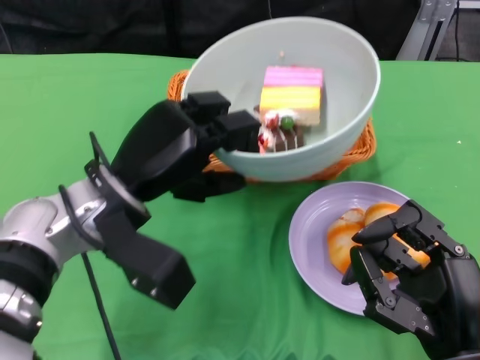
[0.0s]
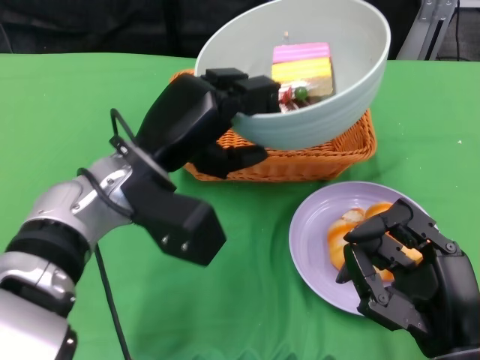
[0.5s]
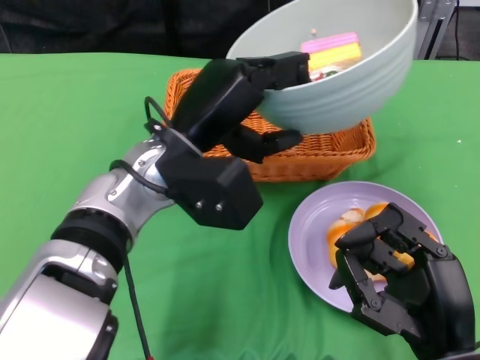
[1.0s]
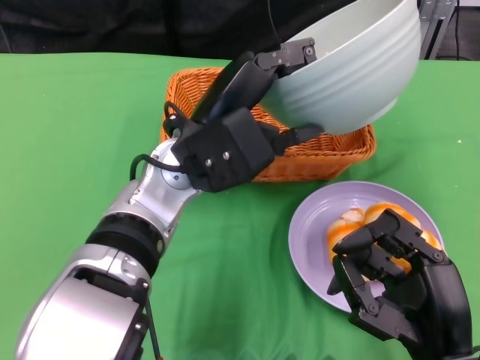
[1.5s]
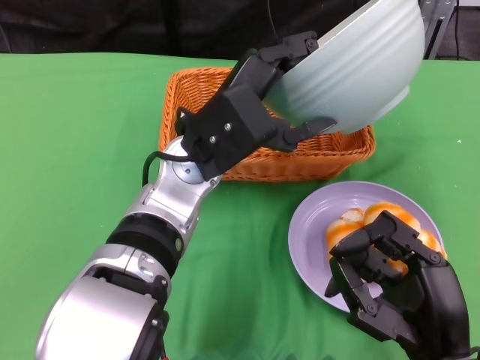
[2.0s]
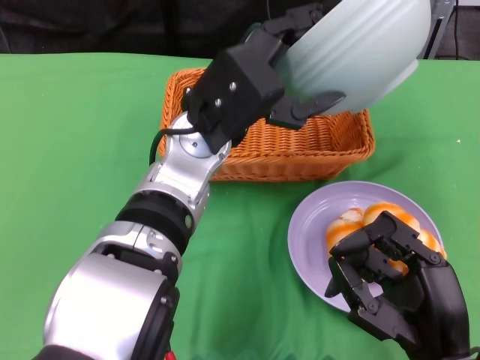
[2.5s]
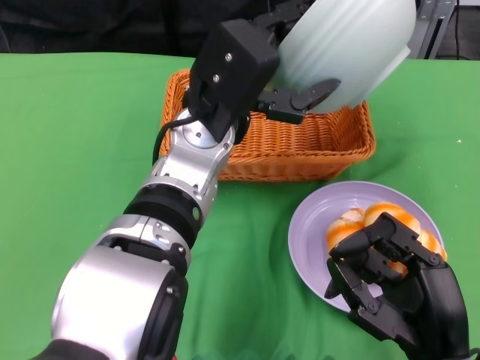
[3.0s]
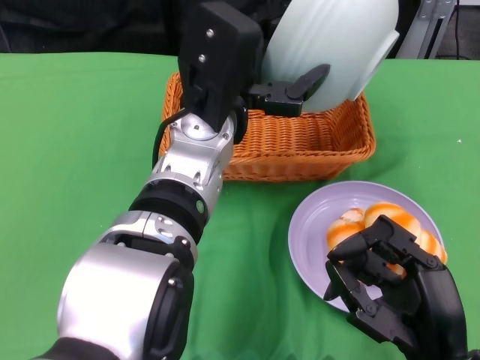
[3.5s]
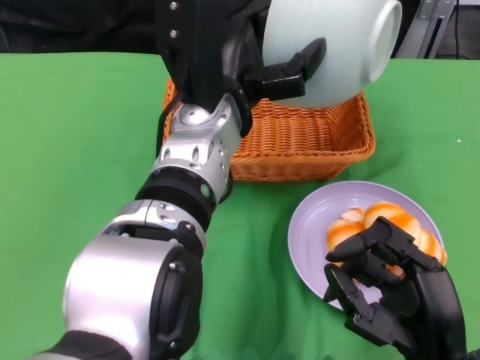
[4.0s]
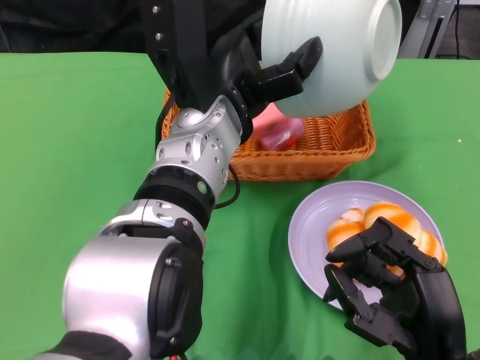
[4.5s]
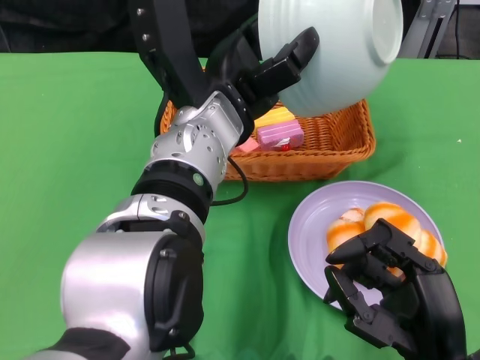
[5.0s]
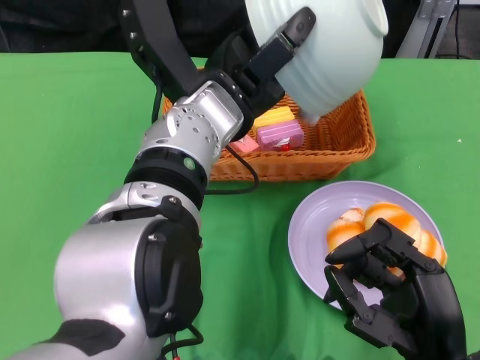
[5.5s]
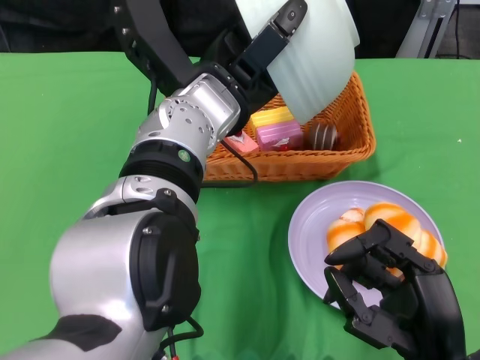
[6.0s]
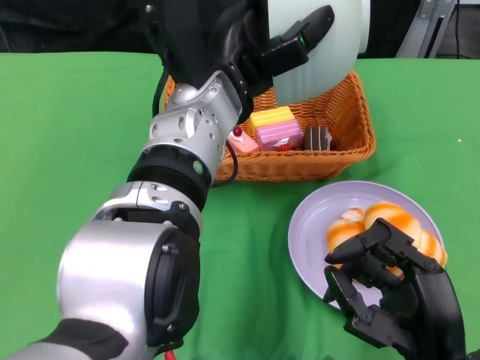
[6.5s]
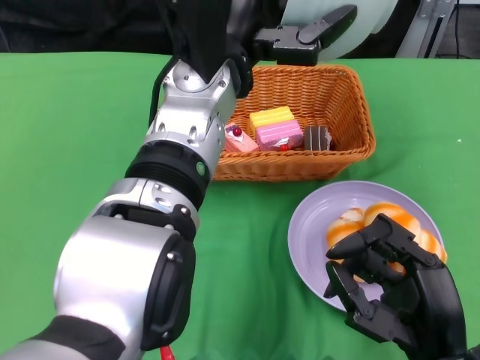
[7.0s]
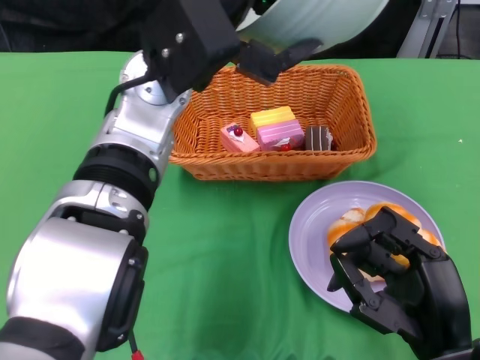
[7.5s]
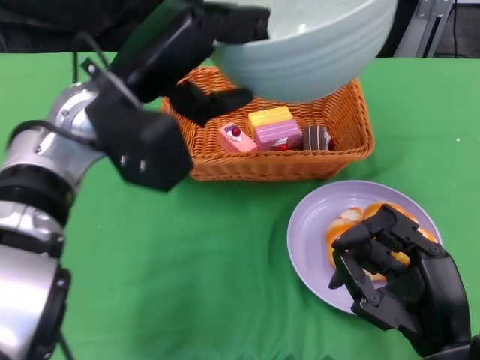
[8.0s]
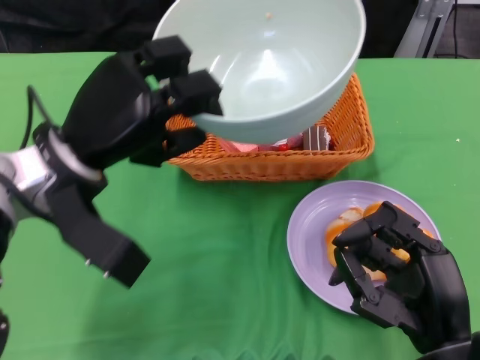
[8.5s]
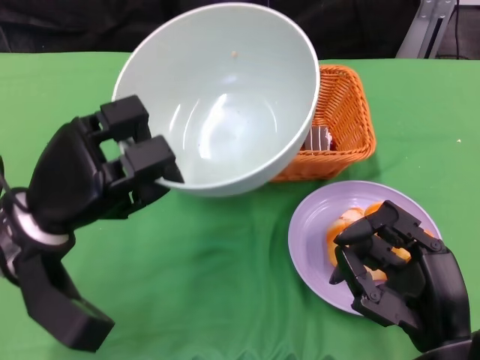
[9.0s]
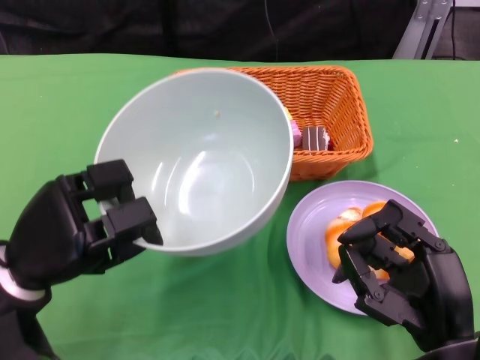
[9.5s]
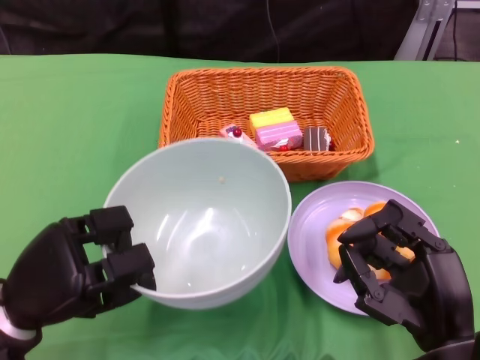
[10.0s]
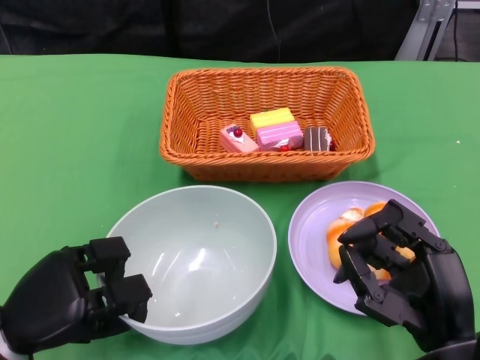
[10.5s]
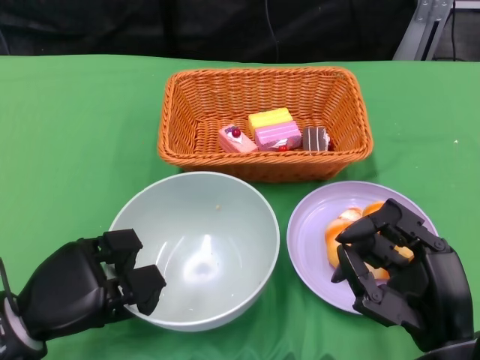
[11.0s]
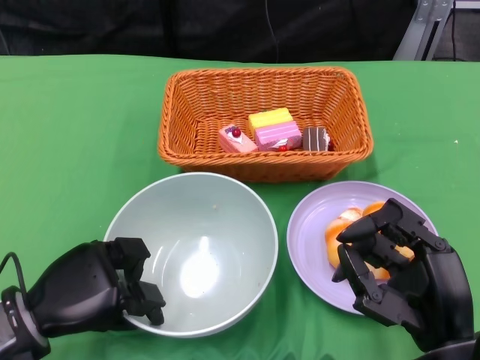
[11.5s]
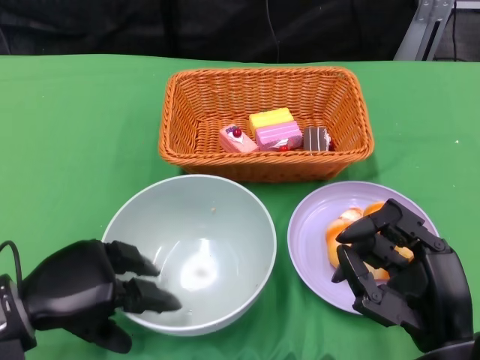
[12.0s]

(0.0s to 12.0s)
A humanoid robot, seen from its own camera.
Step, 0.0s - 6.5s: Pour the cake into the basket with the left gripper.
0.0s - 2.0s: The left hand is displaced to the right by roughly 10 cm.
6.0s - 8.0s: The left hand heads to the left, covering about 10 cm.
8.0s - 10.0s: The left hand goes some 20 cm downward, to the left and backward.

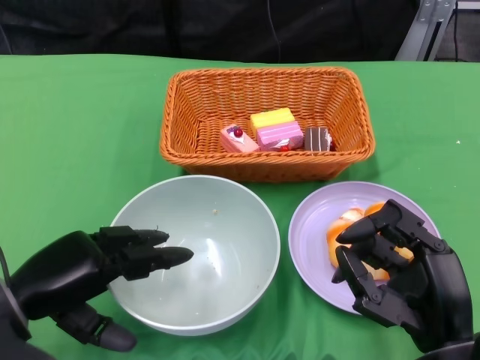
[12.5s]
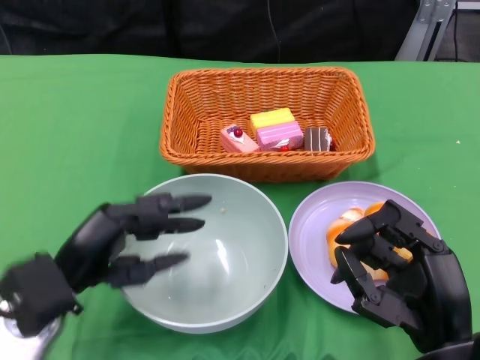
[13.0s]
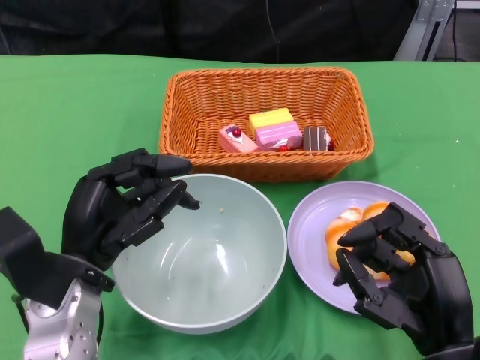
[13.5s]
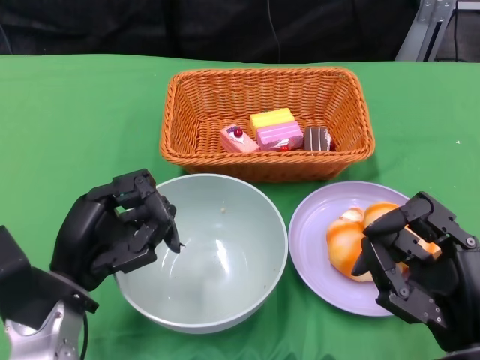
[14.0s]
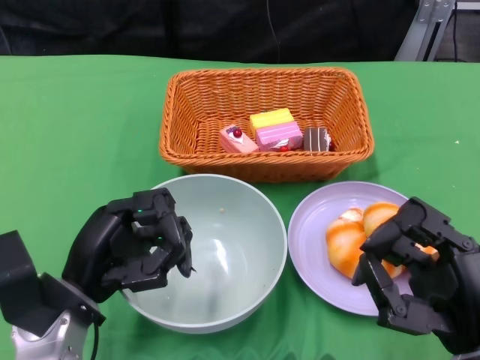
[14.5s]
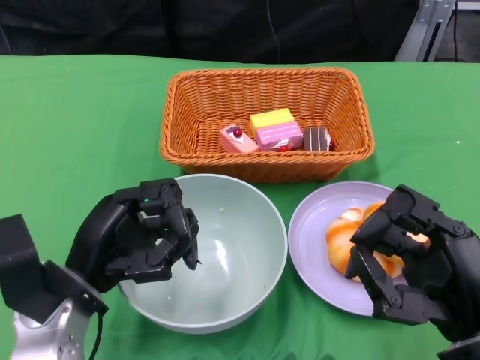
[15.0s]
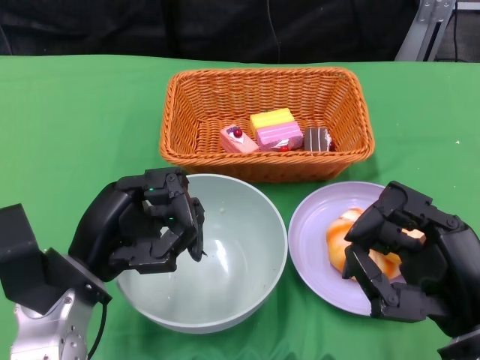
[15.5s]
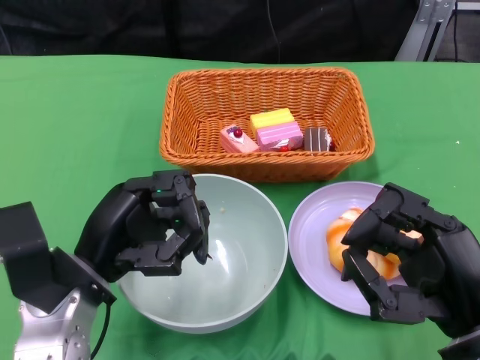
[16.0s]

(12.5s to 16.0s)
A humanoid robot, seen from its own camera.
12.5s - 14.5s: The left hand goes approximately 5 cm to the right.
14.5s - 16.0s: There are only small adjustments of the hands.

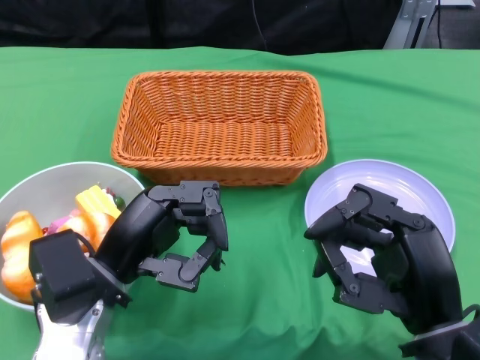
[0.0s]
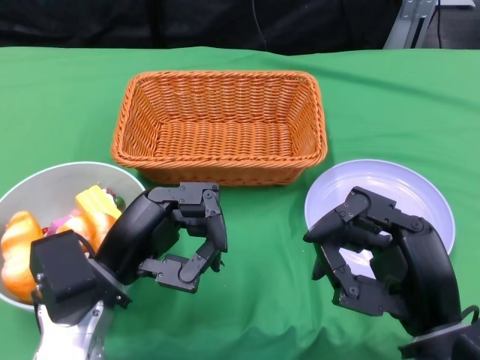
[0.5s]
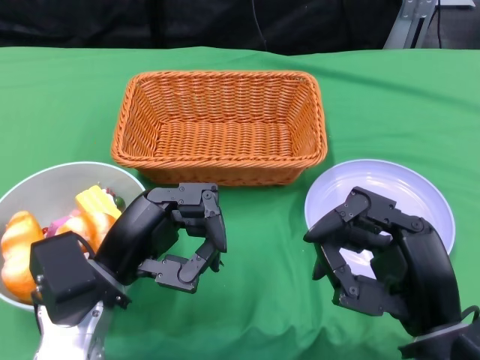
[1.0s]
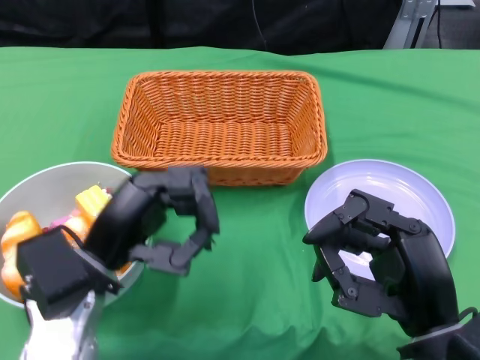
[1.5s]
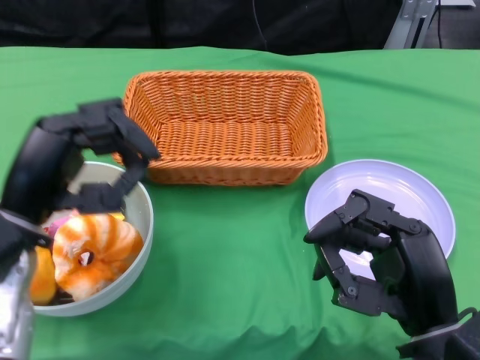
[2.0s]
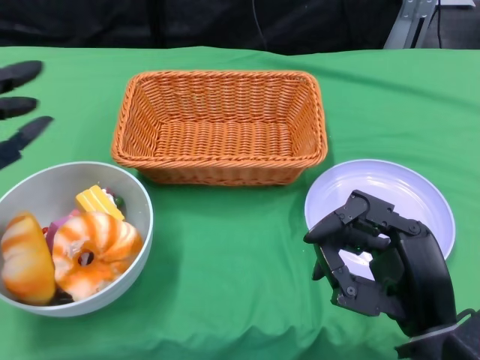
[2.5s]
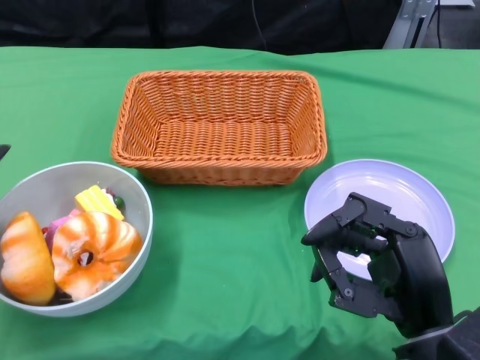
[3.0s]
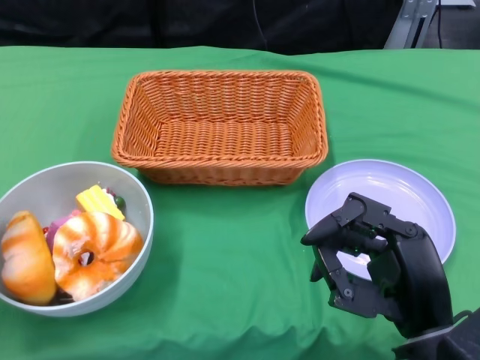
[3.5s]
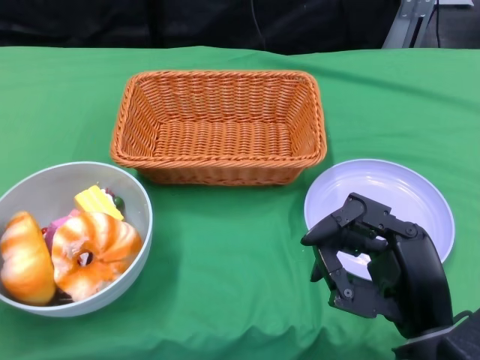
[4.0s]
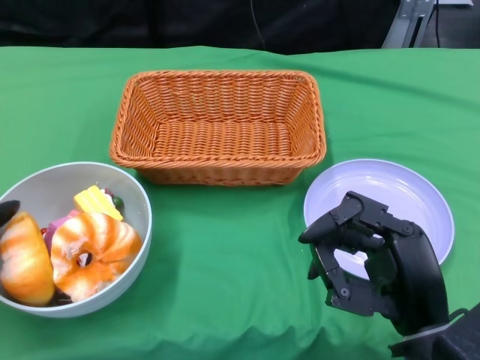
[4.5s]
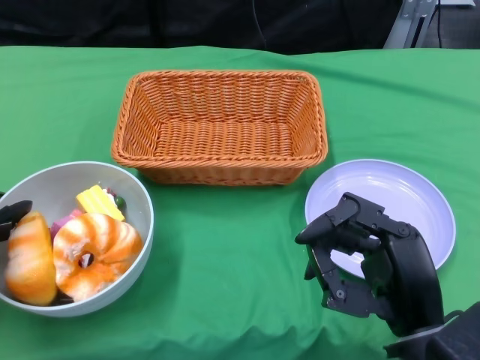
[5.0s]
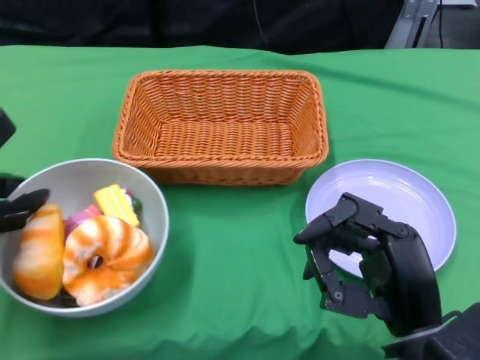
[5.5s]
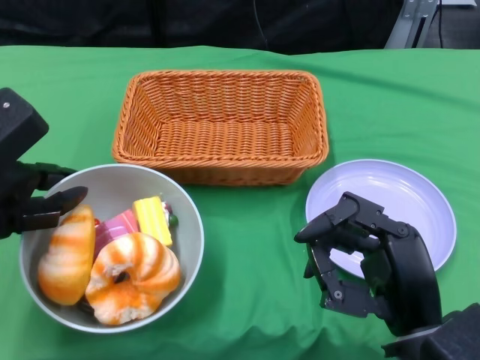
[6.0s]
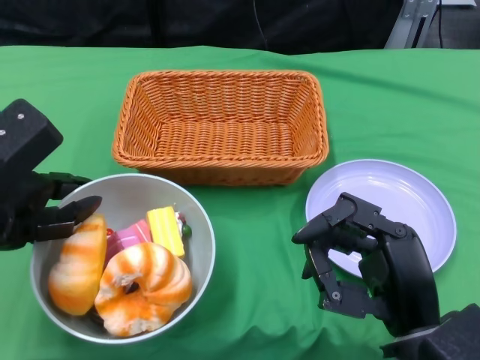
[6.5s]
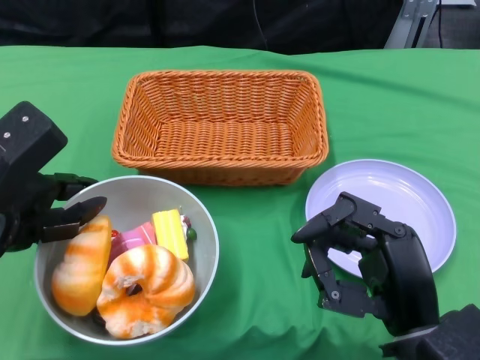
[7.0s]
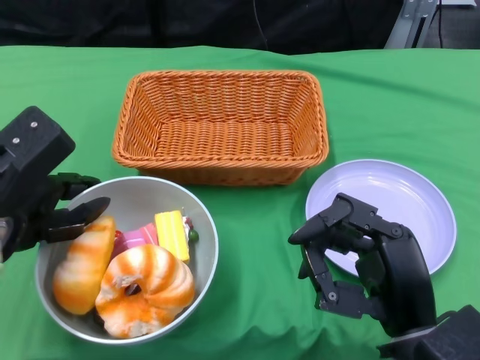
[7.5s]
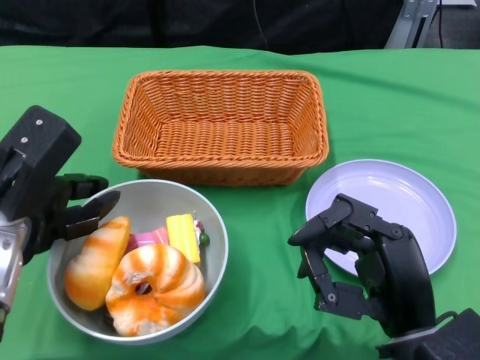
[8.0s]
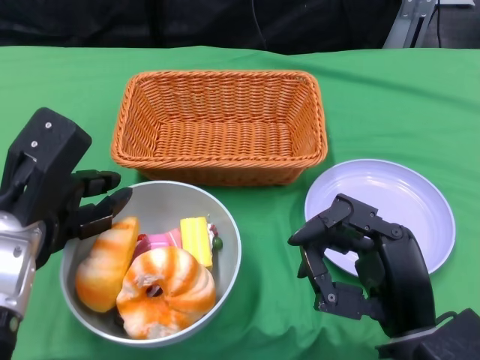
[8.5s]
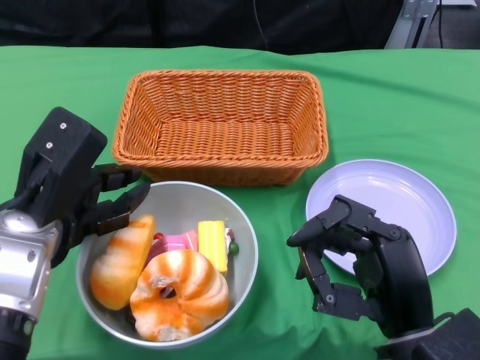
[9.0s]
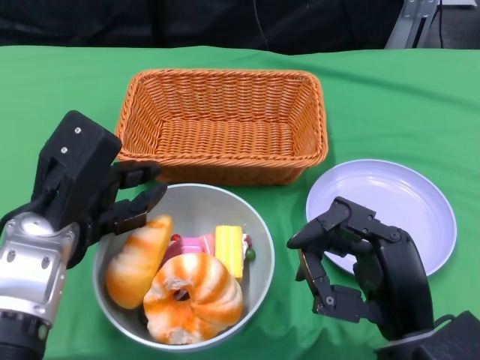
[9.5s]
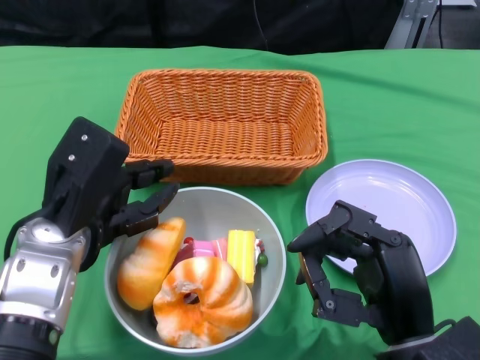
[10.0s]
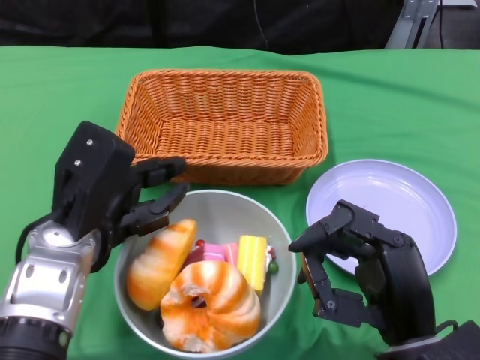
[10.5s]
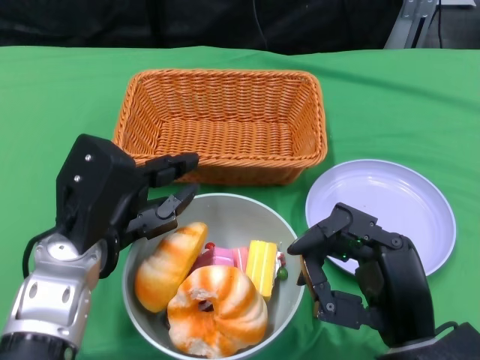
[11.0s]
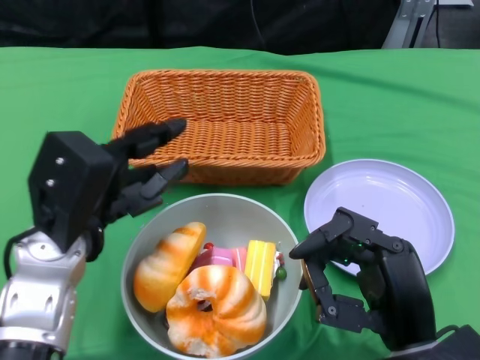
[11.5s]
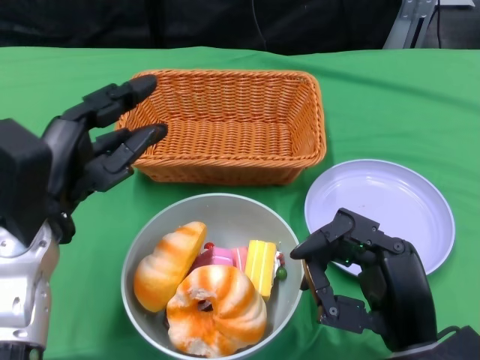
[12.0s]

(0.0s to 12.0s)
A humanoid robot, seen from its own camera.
Step, 0.0s - 5.0s: Grasp the bowl with the left gripper.
2.0s - 4.0s: The left hand shifts some 10 cm to the left.
4.0s - 6.0s: The left hand goes about 5 cm to the right.
